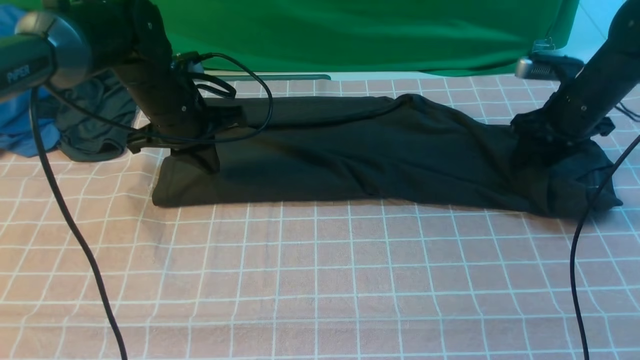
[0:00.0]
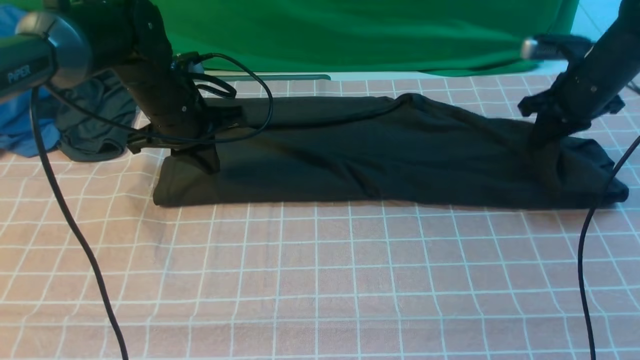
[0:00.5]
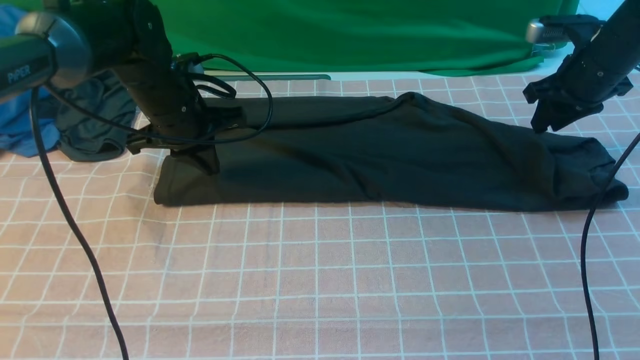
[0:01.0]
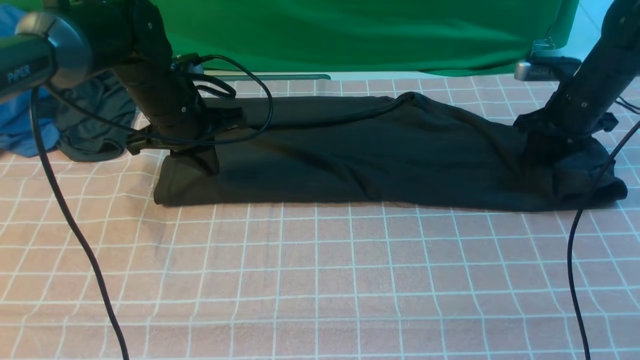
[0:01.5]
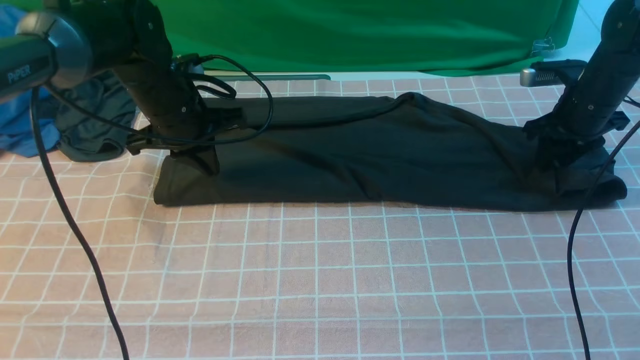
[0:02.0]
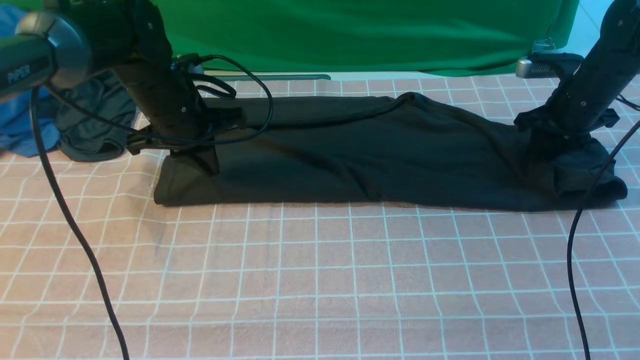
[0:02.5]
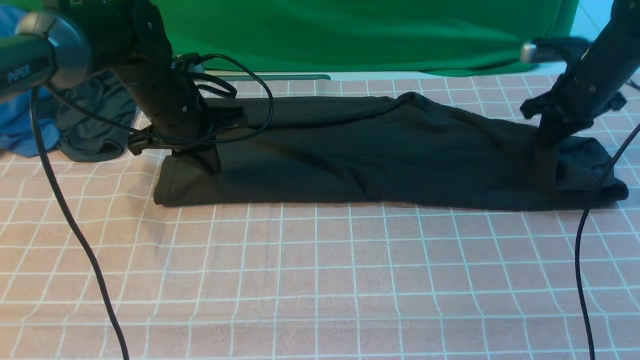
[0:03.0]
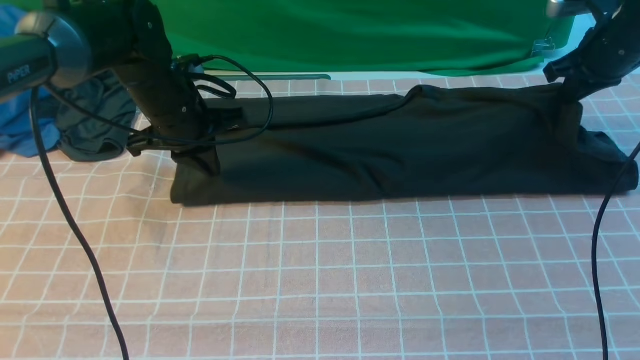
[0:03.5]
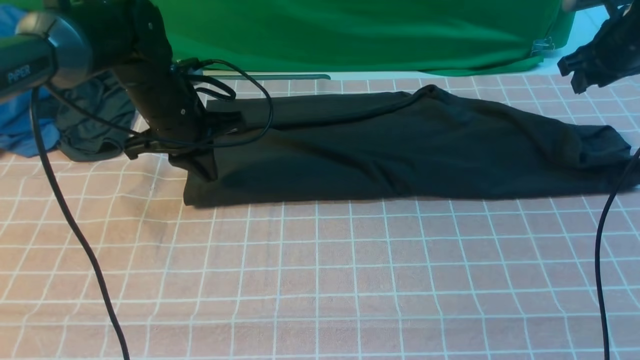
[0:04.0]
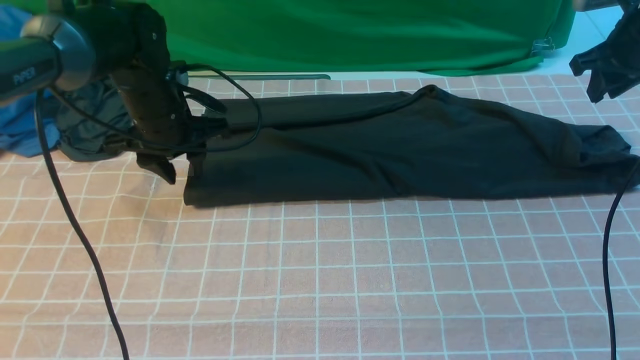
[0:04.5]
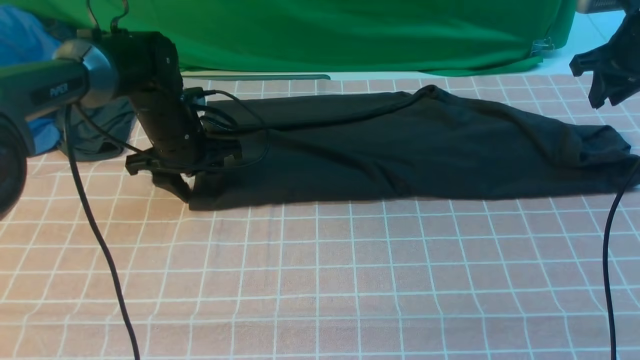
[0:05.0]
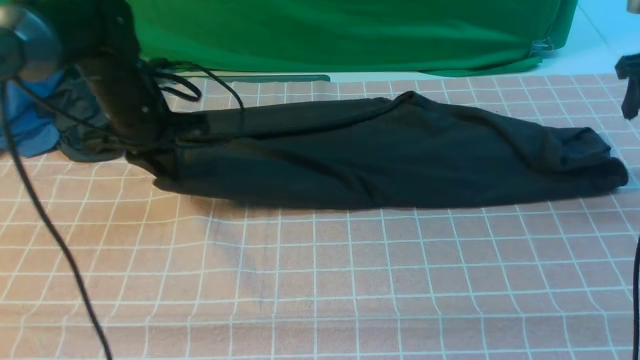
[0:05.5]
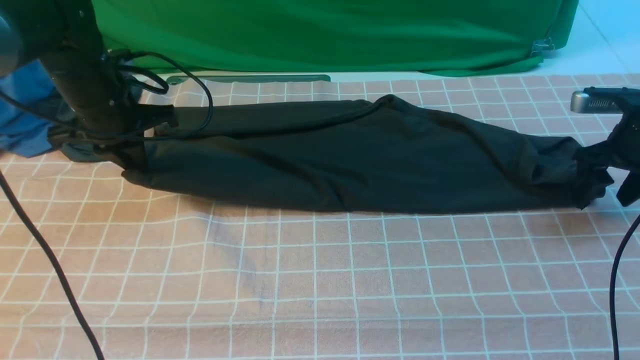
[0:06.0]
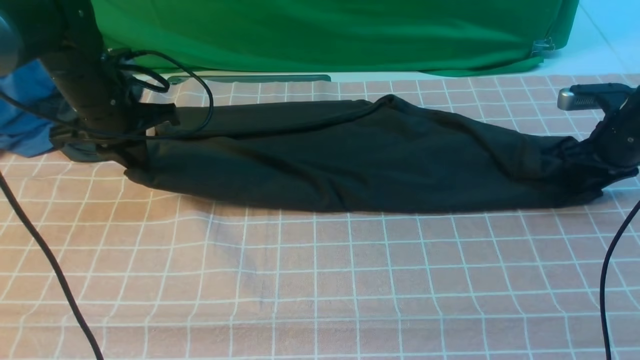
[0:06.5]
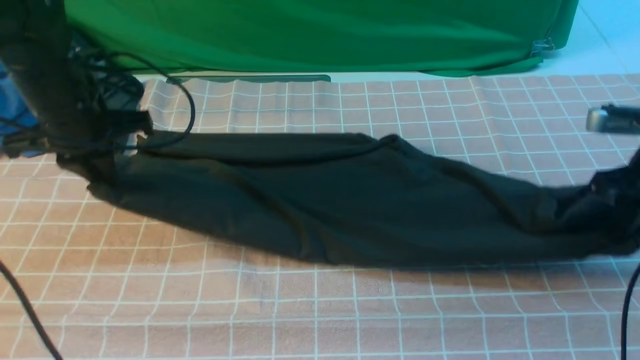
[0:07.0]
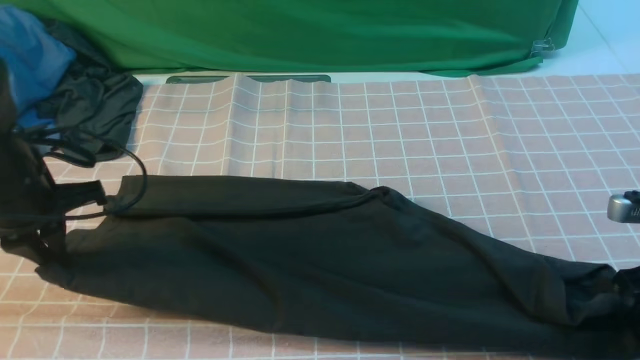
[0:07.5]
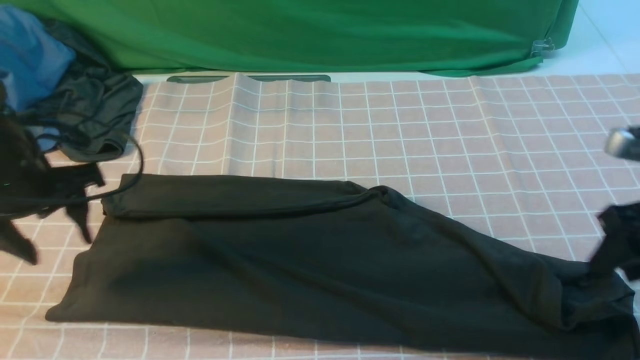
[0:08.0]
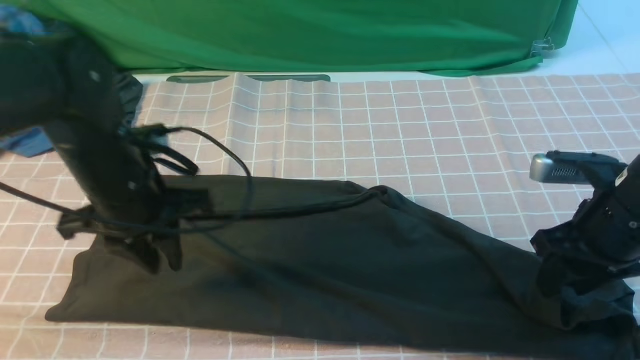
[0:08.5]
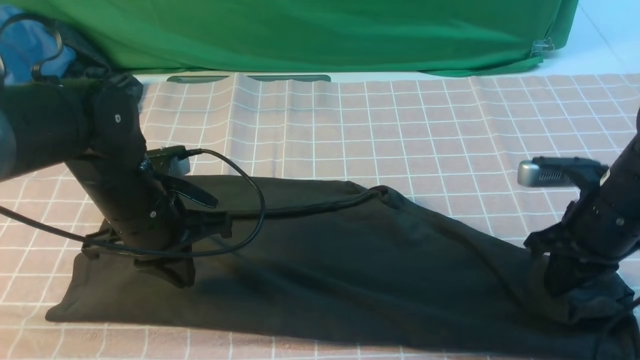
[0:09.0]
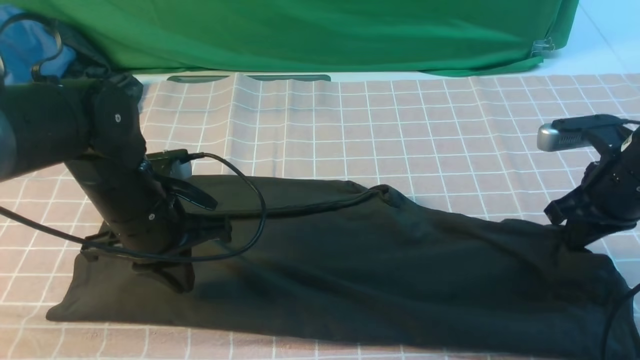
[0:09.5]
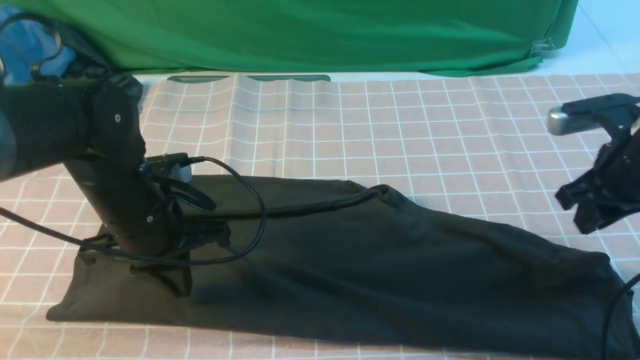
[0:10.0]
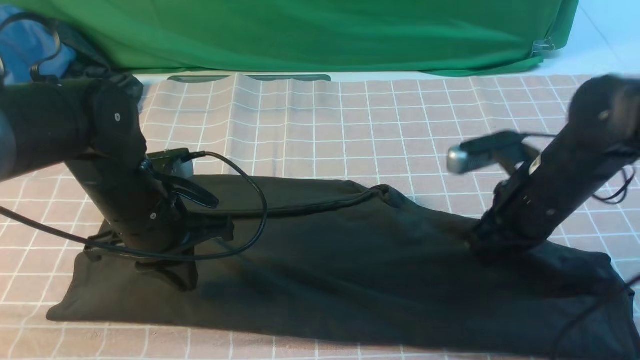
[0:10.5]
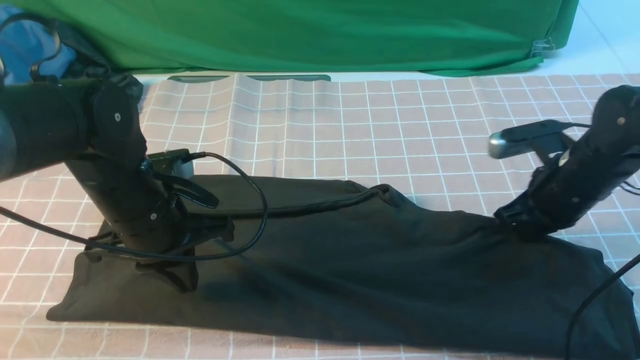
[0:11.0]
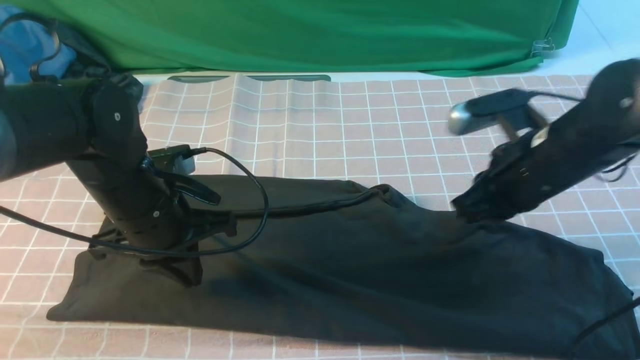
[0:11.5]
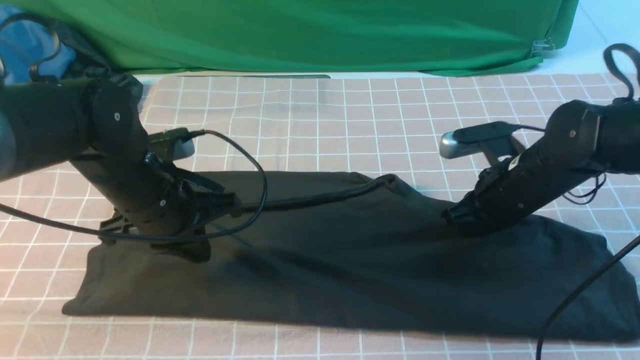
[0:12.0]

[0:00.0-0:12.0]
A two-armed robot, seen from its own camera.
0:00.0 to 0:02.0: The right gripper closes and opens again.
0:02.0 to 0:04.0: The right gripper travels upward by approximately 10 cm, and closes and opens again.
0:04.0 to 0:06.0: The right gripper shifts some 10 cm backward and downward, and opens up, while the left gripper is displaced to the left by some 5 cm, and opens and closes again.
0:06.0 to 0:08.0: The right gripper shifts approximately 15 cm backward and to the left, and closes, then reopens; the left gripper travels backward by approximately 10 cm, and opens.
0:08.0 to 0:10.0: The left gripper moves to the right, about 10 cm, and closes; the right gripper goes approximately 5 cm forward, and closes its fingers.
0:10.0 to 0:12.0: The right gripper goes left and right, about 5 cm each way, reversing 2 times.

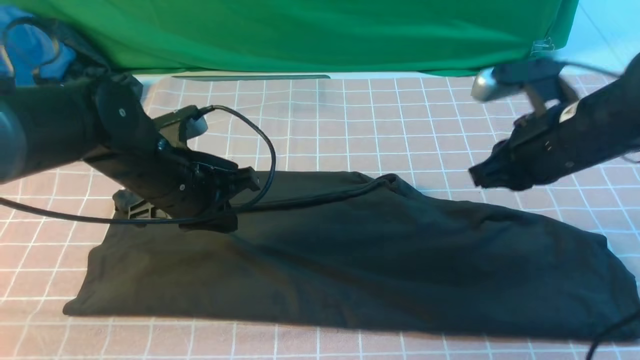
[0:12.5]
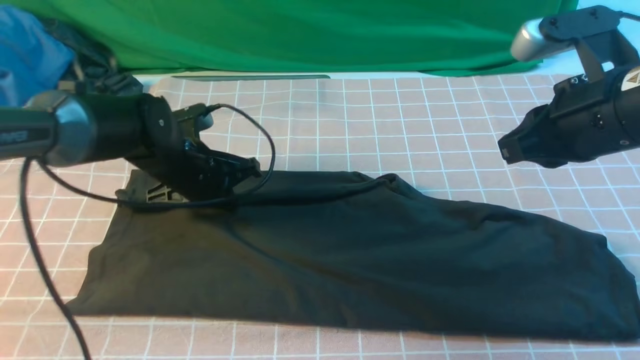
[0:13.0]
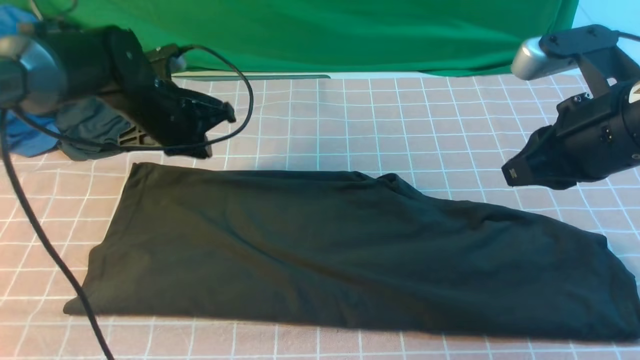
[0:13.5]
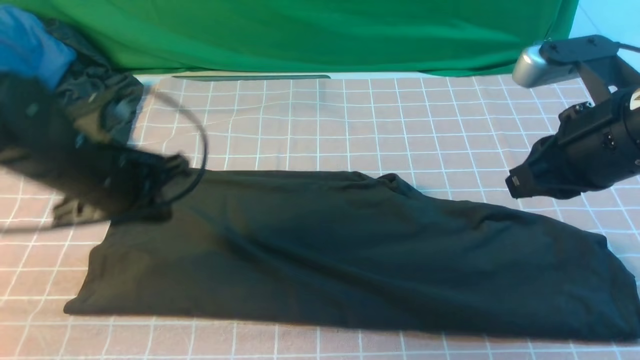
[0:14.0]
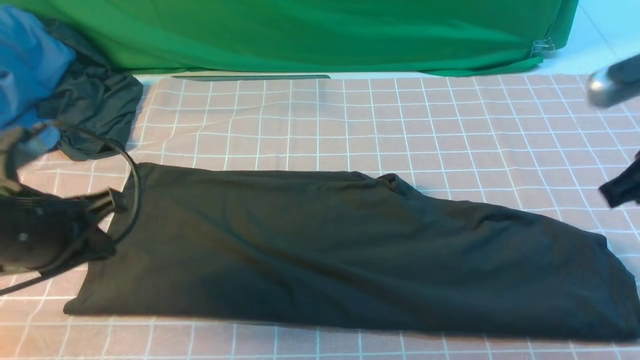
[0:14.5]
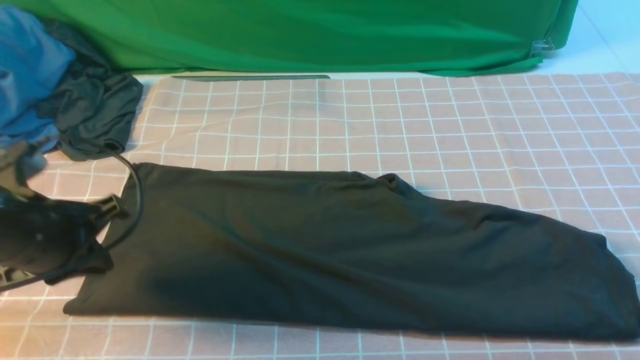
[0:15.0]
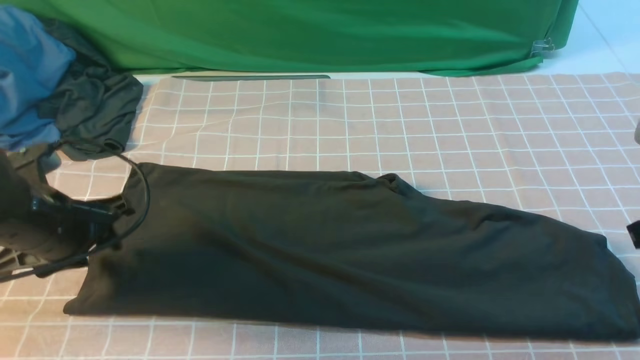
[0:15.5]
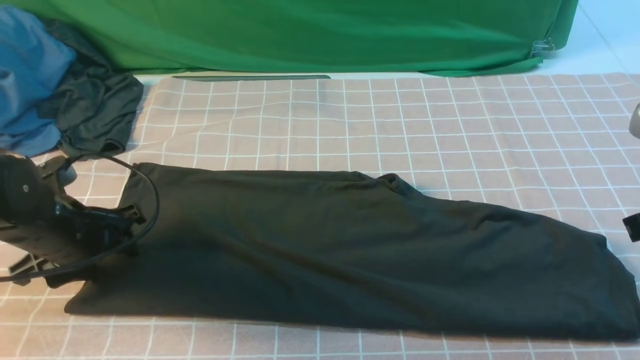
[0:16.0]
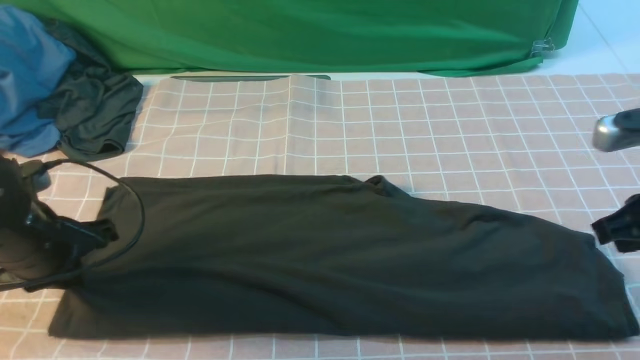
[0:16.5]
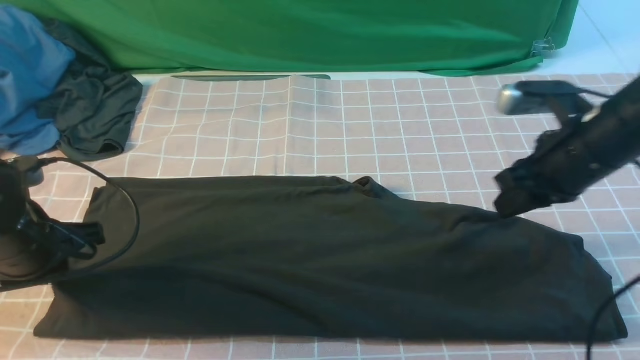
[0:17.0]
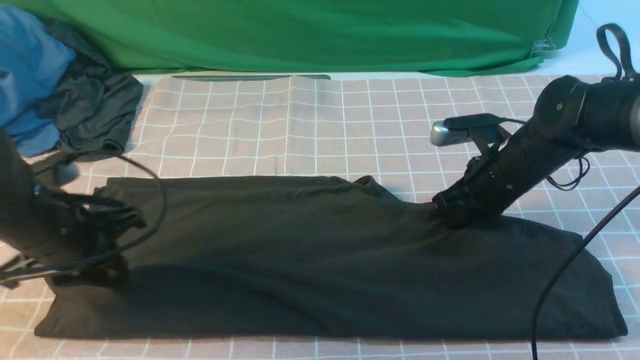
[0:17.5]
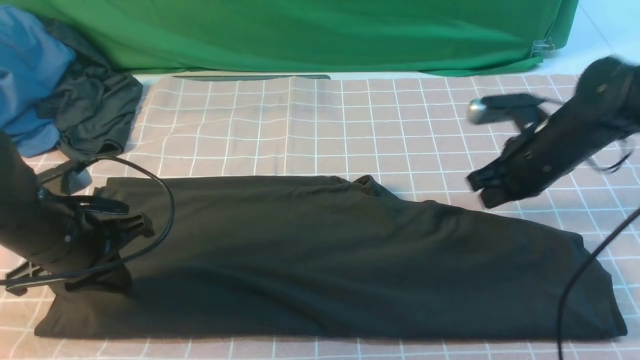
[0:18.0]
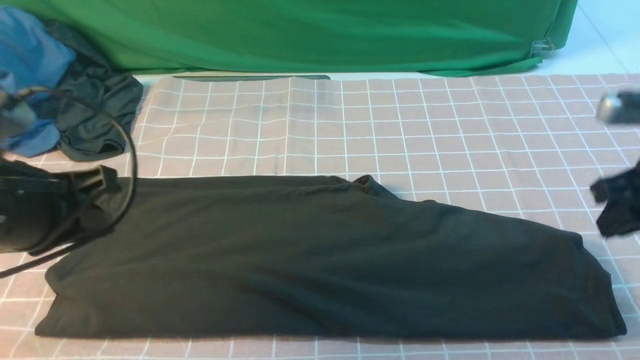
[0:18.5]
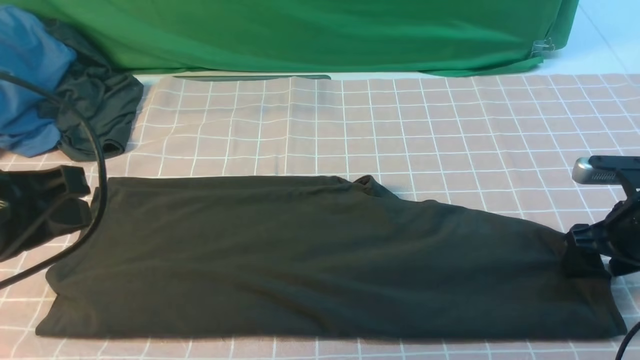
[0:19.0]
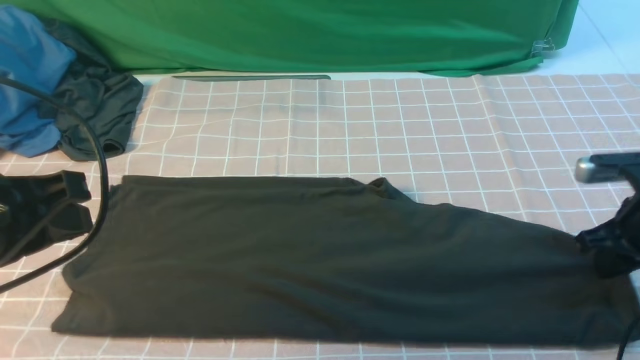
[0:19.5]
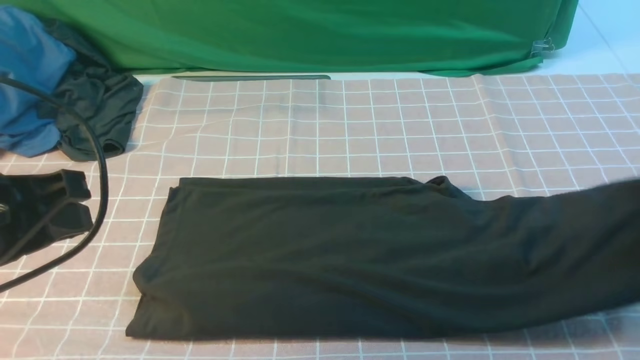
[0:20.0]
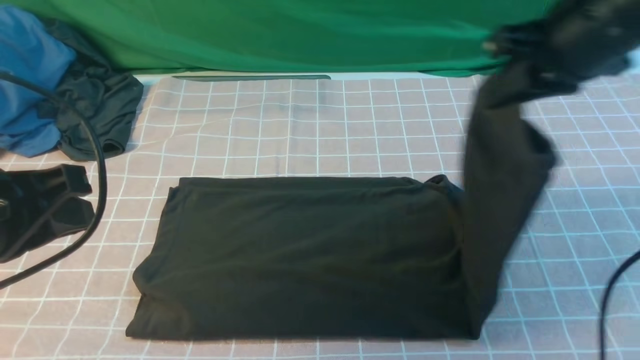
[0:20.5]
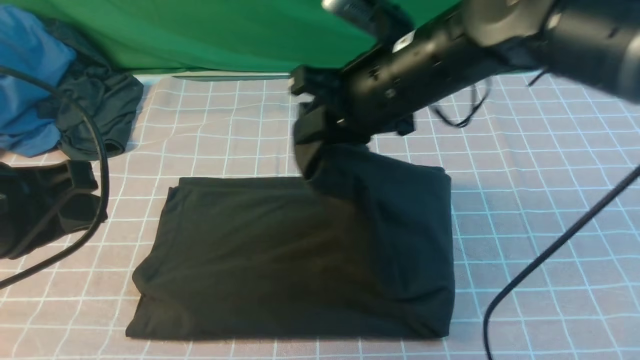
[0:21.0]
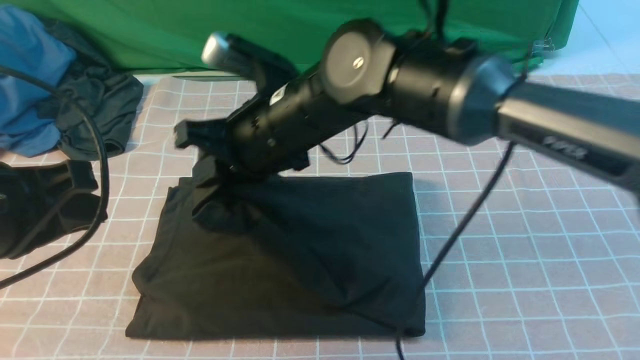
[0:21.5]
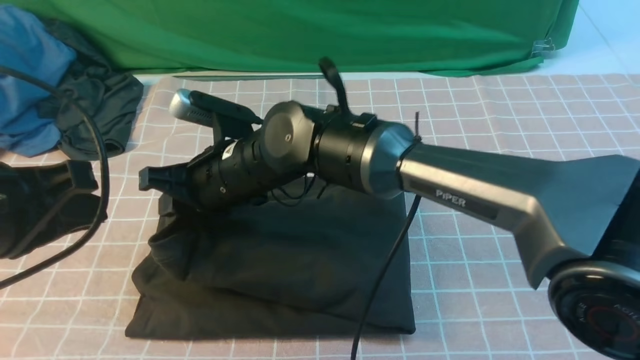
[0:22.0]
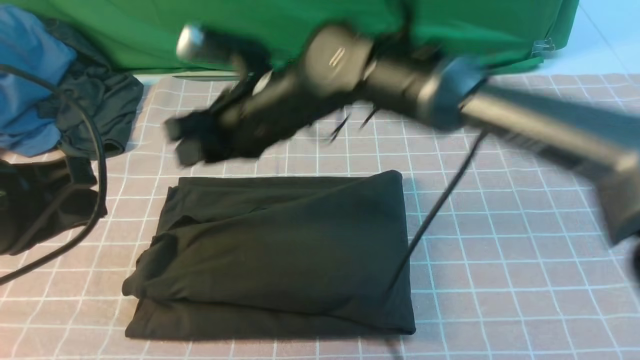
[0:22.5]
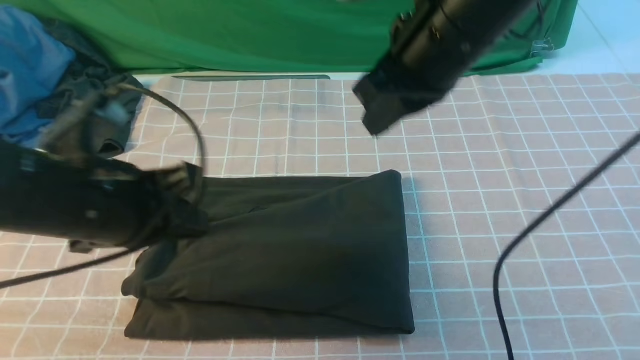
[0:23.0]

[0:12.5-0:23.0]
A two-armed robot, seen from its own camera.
Step, 0:12.5 to 0:19.0: use the right arm to clamp the right edge of the fabric.
Step, 0:19.5 to 0:22.0: use the right arm to drag the right edge of the fabric to the left and folds it over the left edge.
0:12.5 to 0:14.5: The right gripper moves backward, upward and to the right, approximately 10 cm, while the left gripper goes some 15 cm backward, to the left and upward.
0:14.5 to 0:16.5: The grippers both shift downward by roughly 5 cm. The left gripper opens, then closes once more.
0:16.5 to 0:19.0: The right gripper goes about 10 cm downward, goes to the left and returns, approximately 10 cm each way, and opens. The left gripper heads upward and backward, covering approximately 15 cm.
0:19.0 to 0:21.0: The right gripper goes approximately 30 cm to the left and upward, and closes.
0:21.0 to 0:23.0: The left gripper shifts about 10 cm forward and downward. The right gripper moves about 15 cm to the left and comes back.
